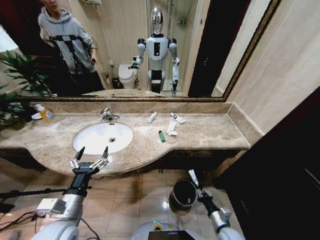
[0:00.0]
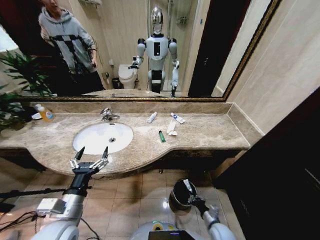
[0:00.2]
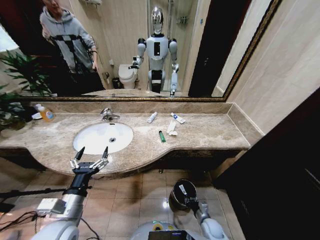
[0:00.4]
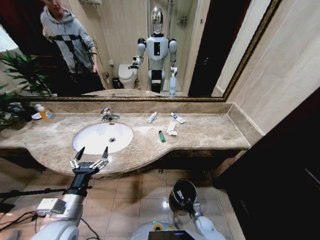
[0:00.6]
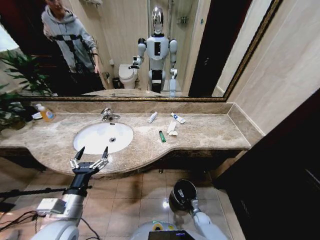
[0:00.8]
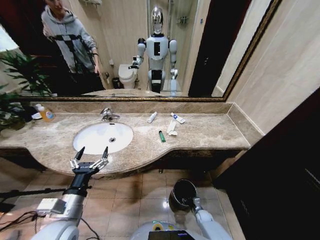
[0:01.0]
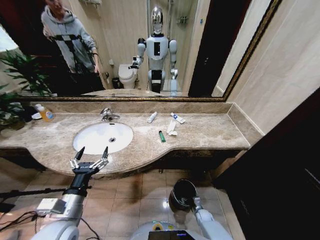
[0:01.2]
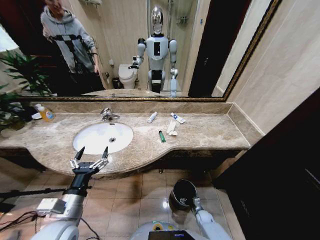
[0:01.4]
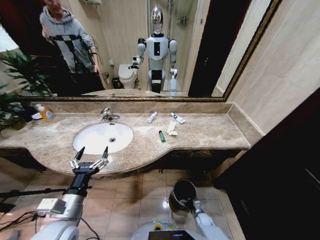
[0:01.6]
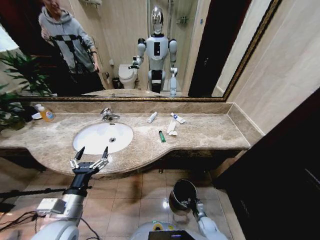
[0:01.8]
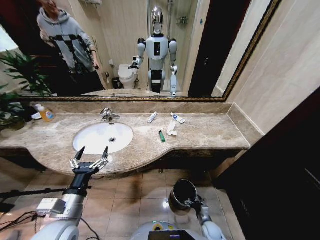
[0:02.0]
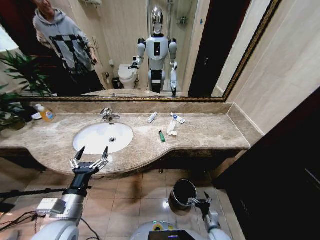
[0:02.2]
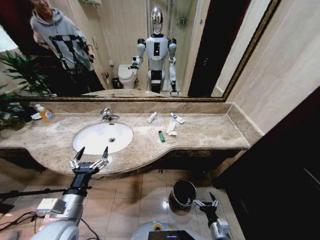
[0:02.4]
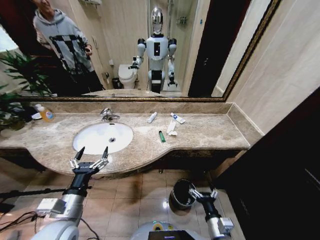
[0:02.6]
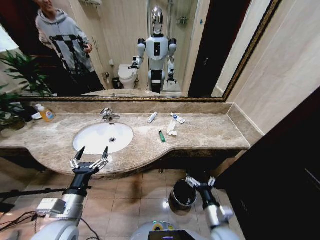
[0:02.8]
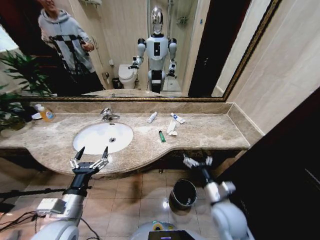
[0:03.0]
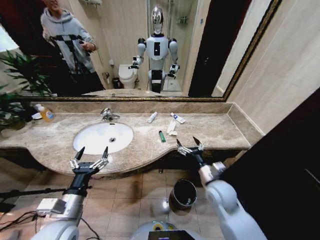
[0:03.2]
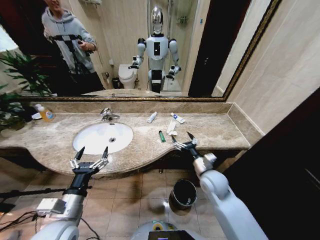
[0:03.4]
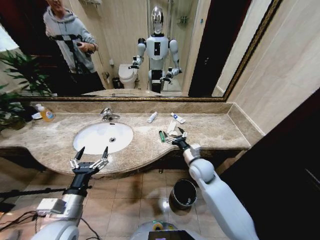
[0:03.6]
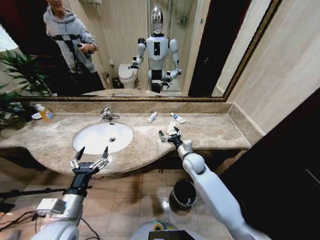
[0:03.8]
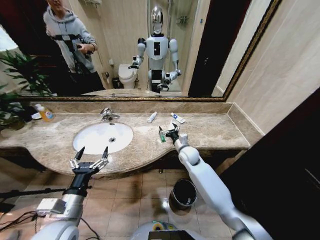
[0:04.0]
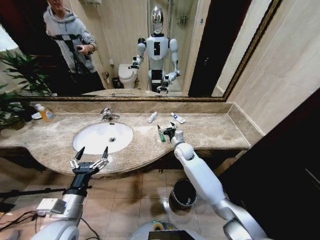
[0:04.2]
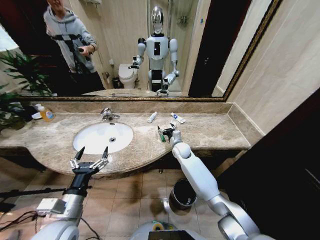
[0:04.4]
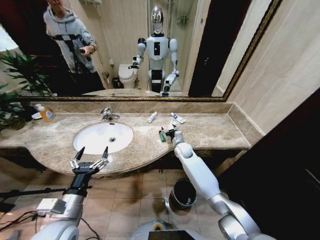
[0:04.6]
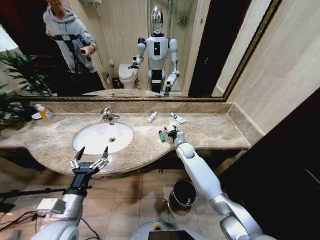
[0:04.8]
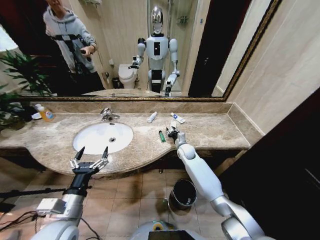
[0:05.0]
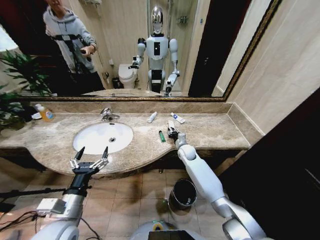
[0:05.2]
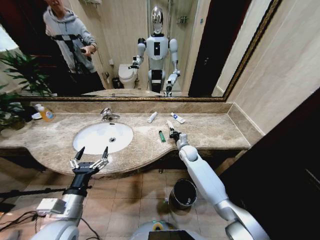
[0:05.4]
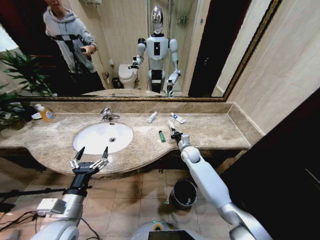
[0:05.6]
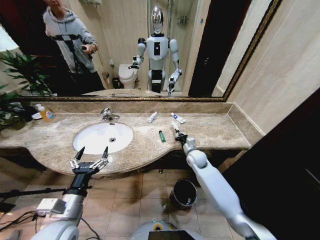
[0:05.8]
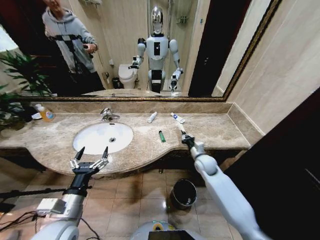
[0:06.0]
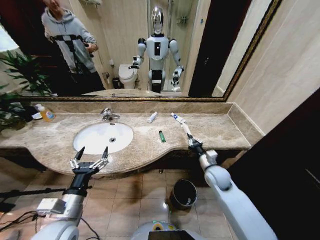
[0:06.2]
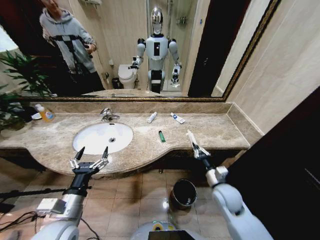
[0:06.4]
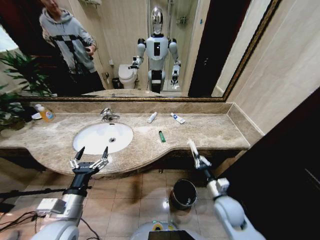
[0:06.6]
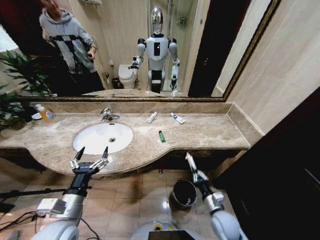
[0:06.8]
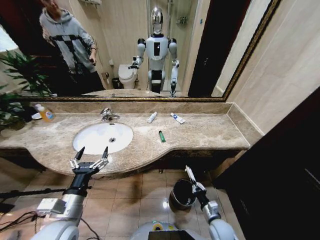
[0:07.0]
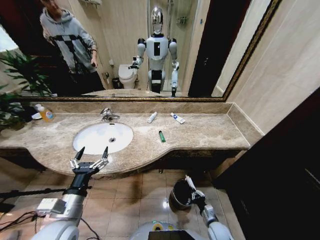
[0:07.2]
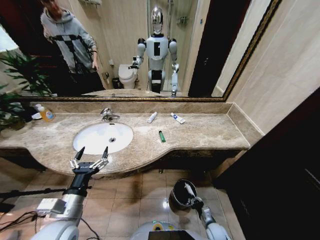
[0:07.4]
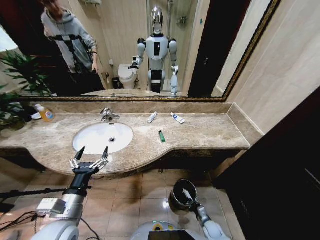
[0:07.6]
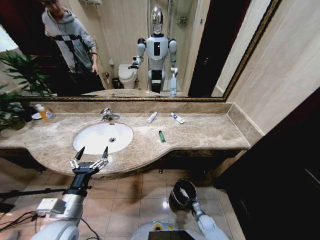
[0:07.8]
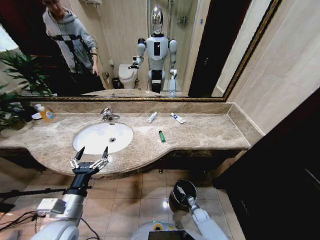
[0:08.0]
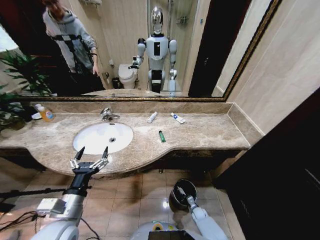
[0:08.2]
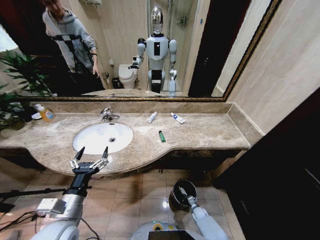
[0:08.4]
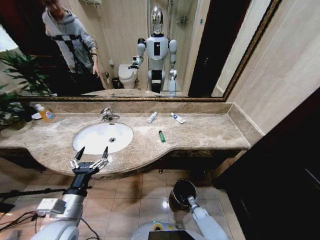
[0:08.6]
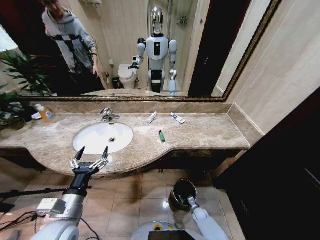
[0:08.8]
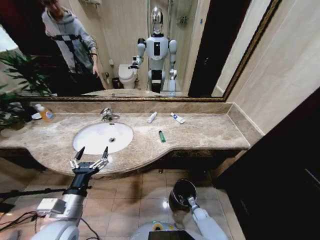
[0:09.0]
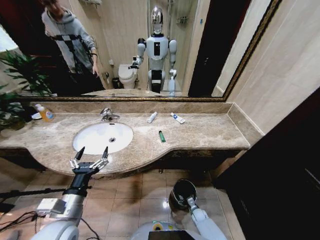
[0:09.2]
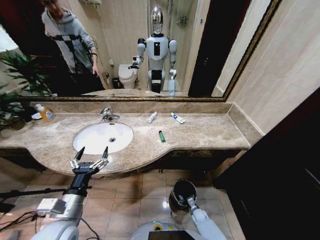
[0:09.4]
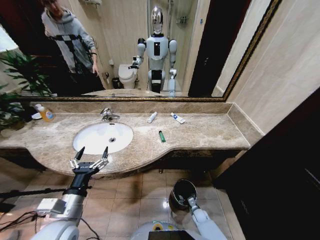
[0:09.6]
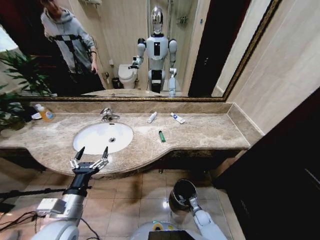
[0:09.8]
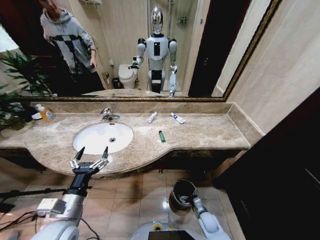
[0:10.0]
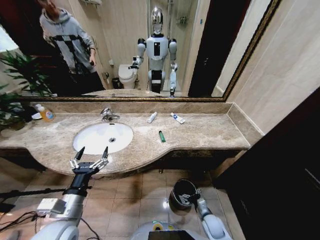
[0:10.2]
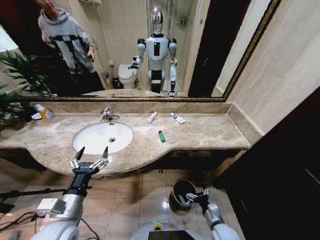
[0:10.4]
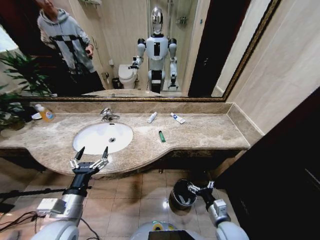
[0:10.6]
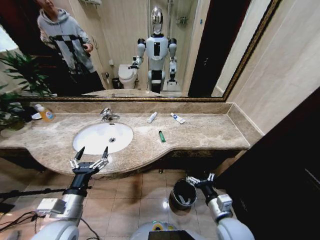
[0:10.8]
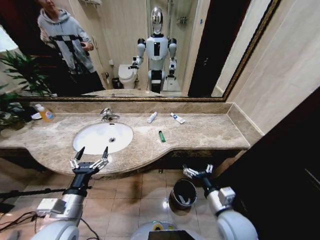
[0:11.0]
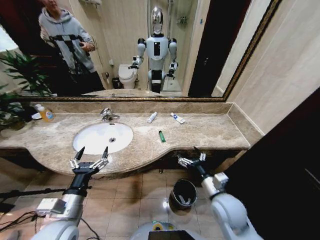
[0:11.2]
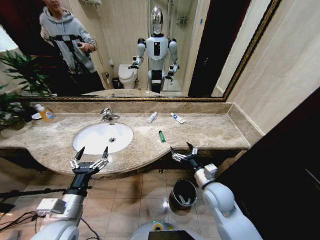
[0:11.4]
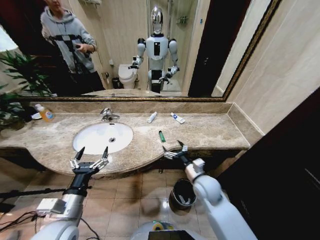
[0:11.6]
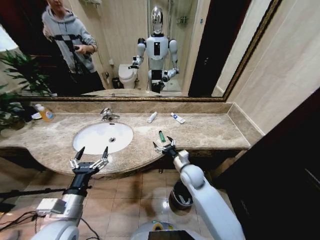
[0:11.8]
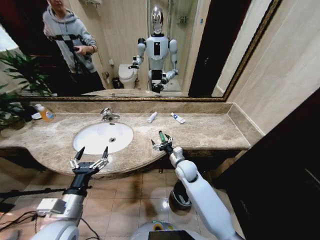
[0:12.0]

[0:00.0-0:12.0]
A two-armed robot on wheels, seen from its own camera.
Task of the whole recording: Pick up the trash from the sink and place it in the trash bin.
0:00.0 to 0:01.6: The right gripper is displaced downward and forward by roughly 20 cm, and opens its fingers.
0:01.6 to 0:03.0: The right gripper goes roughly 40 cm upward.
0:03.0 to 0:04.4: The right gripper moves forward, some 30 cm.
0:04.4 to 0:06.0: The right gripper moves to the right and backward, some 15 cm, and closes up.
0:06.0 to 0:07.6: The right gripper is displaced downward and backward by roughly 40 cm.
0:07.6 to 0:09.0: The right gripper heads forward, covering some 5 cm, and opens its fingers.
0:09.0 to 0:10.4: The right gripper travels upward and backward by some 25 cm.
0:10.4 to 0:12.0: The right gripper travels forward, upward and to the left by some 30 cm.

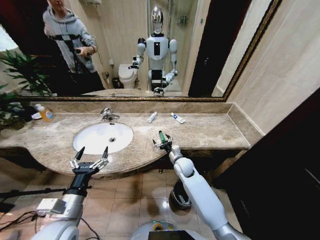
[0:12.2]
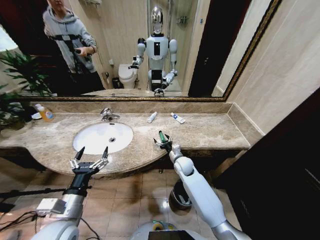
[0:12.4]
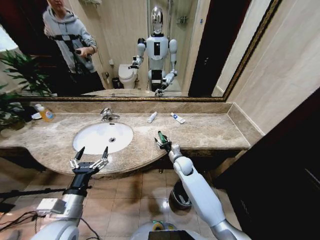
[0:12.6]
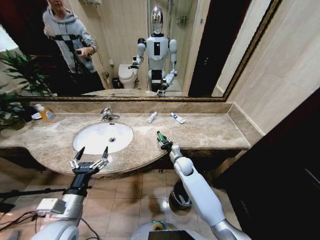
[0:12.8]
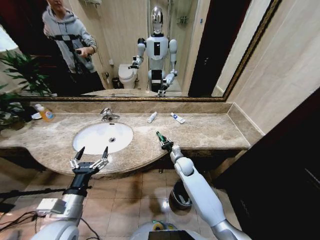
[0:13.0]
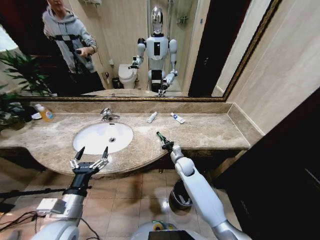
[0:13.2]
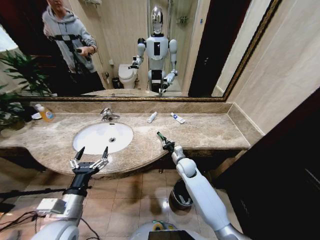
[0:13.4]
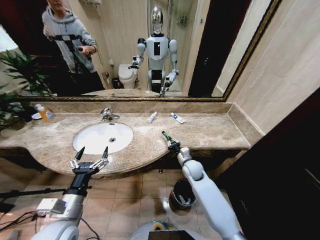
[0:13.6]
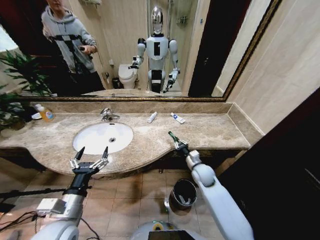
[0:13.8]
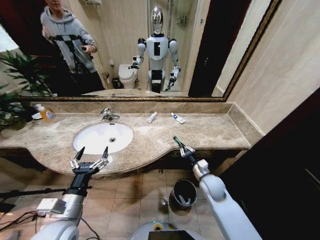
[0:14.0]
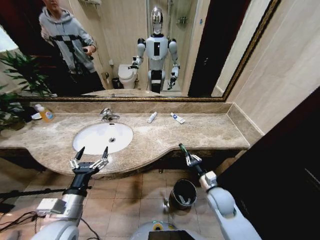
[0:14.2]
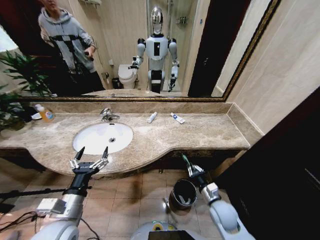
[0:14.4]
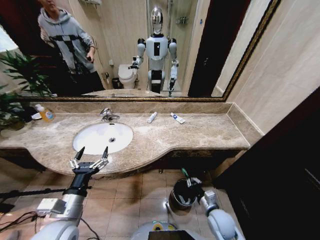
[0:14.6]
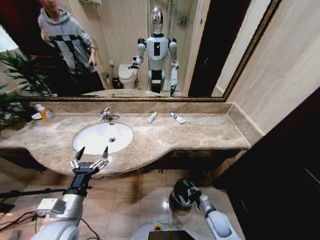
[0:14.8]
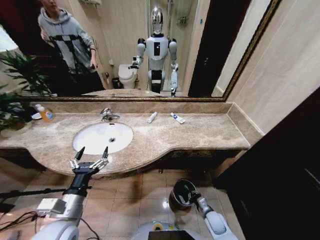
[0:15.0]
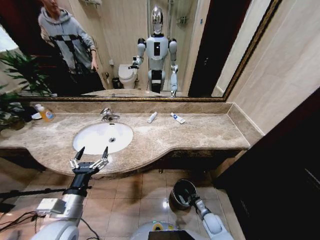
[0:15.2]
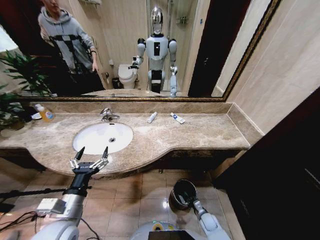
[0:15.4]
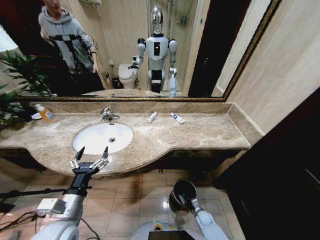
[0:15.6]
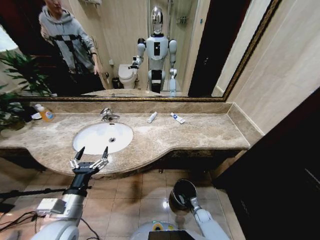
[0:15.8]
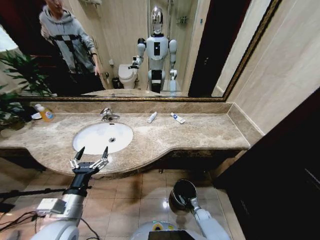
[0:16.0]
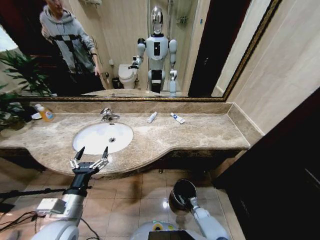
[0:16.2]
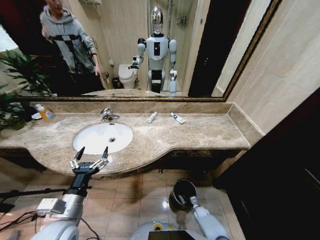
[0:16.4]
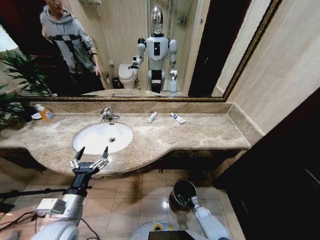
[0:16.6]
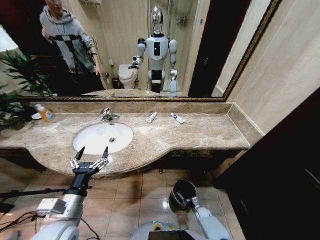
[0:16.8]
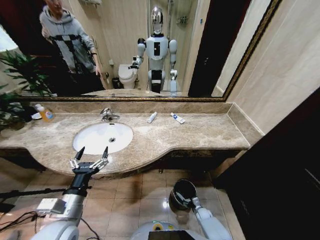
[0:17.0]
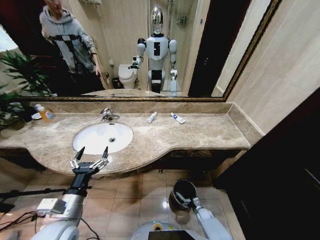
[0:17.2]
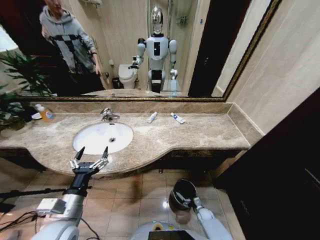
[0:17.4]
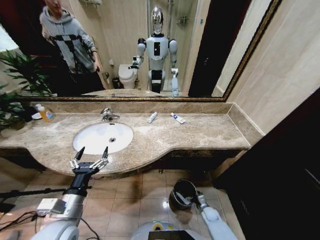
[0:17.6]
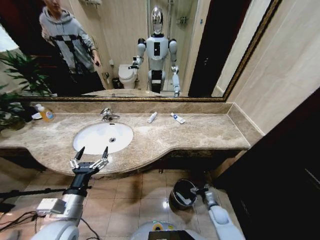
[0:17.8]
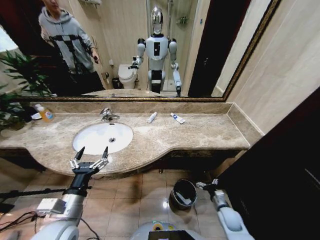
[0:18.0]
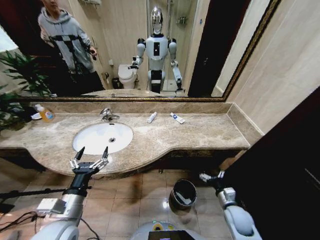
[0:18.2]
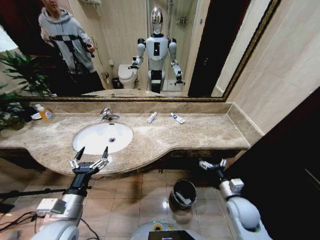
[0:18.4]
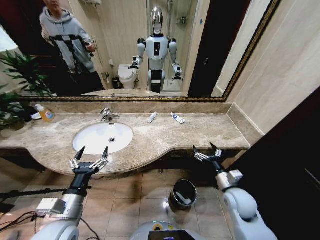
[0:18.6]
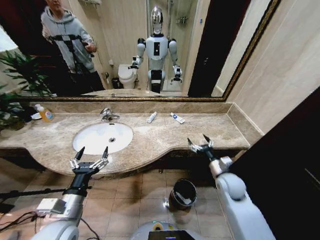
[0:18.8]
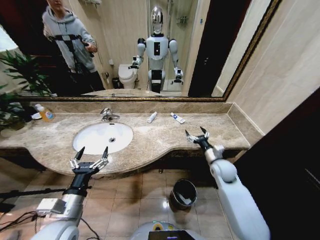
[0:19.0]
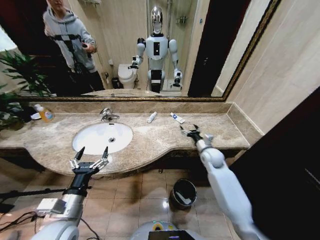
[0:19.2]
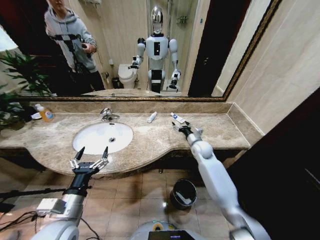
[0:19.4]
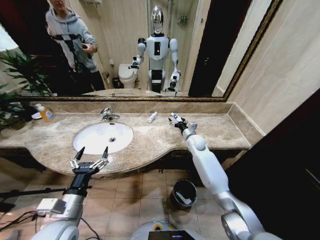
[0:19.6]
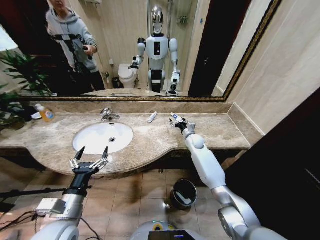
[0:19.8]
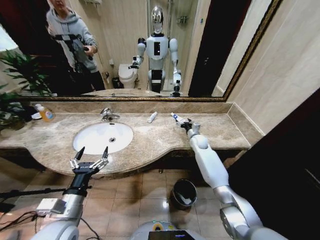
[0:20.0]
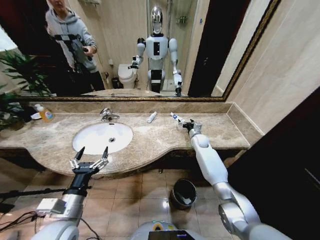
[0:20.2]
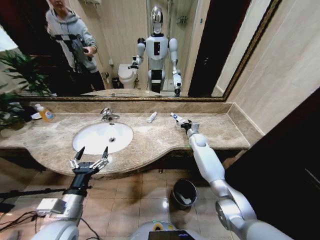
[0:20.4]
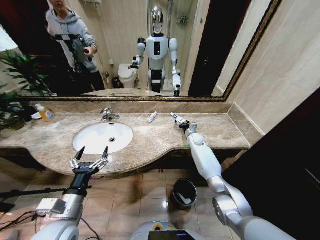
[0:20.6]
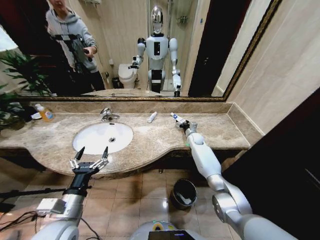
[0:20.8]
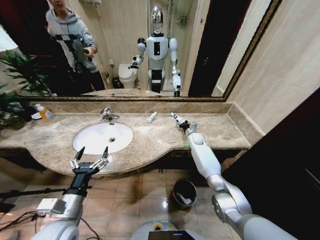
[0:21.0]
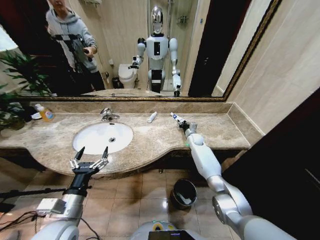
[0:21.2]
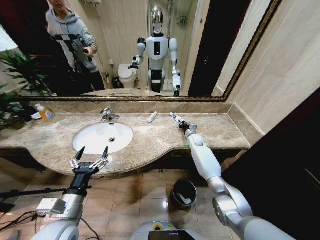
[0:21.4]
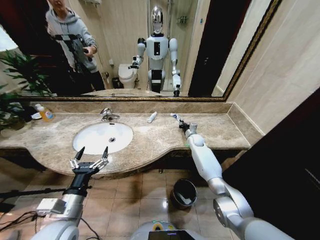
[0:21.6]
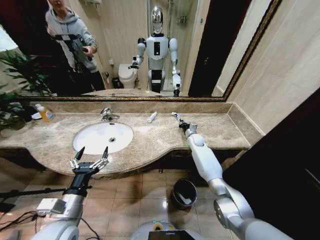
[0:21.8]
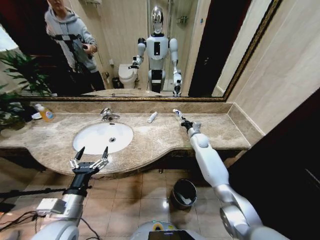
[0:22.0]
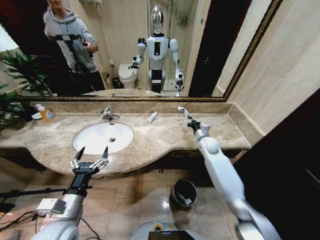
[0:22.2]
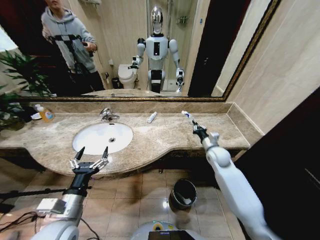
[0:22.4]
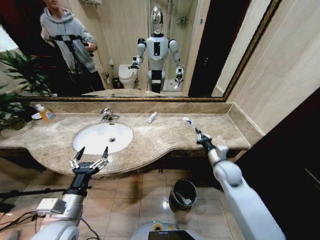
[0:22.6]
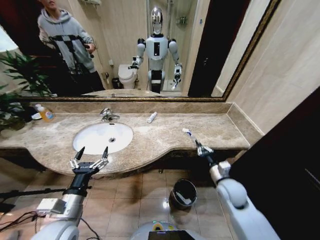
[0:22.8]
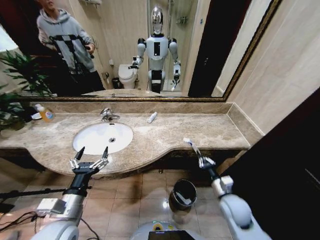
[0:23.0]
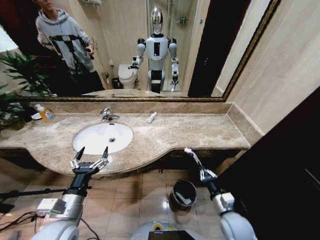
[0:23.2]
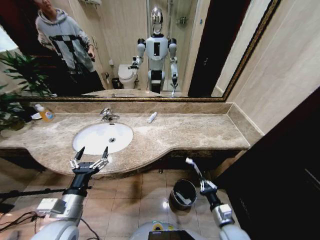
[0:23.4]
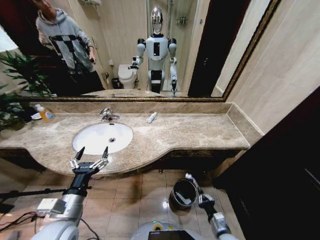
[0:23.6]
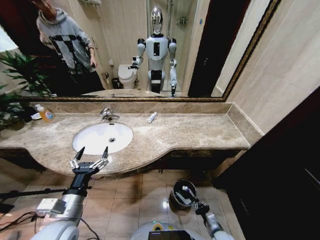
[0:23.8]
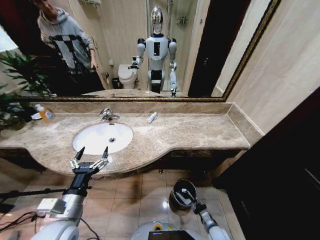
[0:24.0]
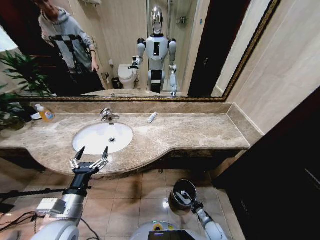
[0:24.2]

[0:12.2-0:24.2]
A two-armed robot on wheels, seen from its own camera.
Task of the whole recording: Pick up the trash from the sink and place it in the trash bin.
0:12.2 to 0:13.8: The right gripper heads to the right, covering some 10 cm, and closes up.
0:13.8 to 0:15.2: The right gripper shifts roughly 30 cm downward and backward.
0:15.2 to 0:16.6: The right gripper is displaced downward and forward by approximately 10 cm.
0:16.6 to 0:18.2: The right gripper travels upward by some 25 cm, and opens its fingers.
0:18.2 to 0:19.8: The right gripper moves forward, about 35 cm.
0:19.8 to 0:21.2: The right gripper ends up approximately 5 cm from where it was, and closes up.
0:21.2 to 0:22.6: The right gripper shifts roughly 25 cm backward, and closes its fingers.
0:22.6 to 0:24.2: The right gripper goes some 35 cm downward and backward.
